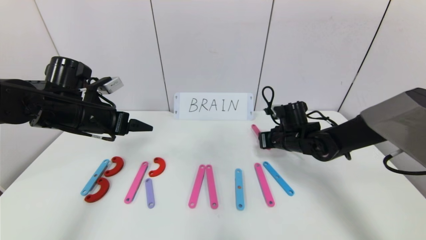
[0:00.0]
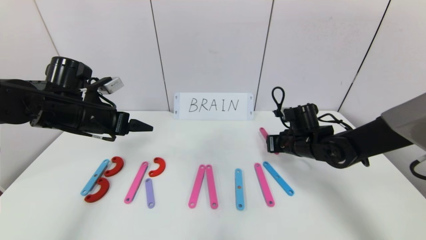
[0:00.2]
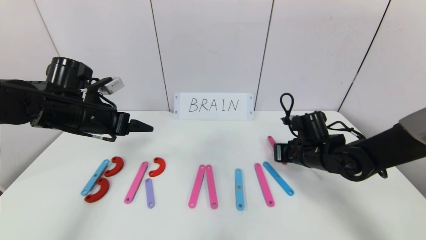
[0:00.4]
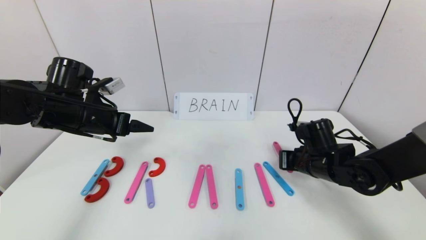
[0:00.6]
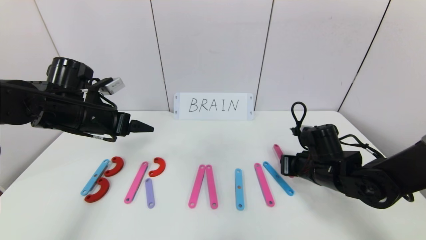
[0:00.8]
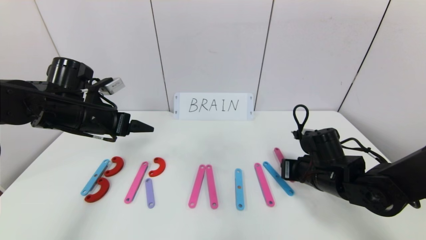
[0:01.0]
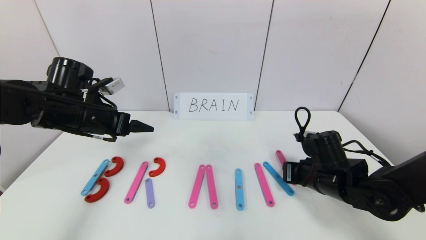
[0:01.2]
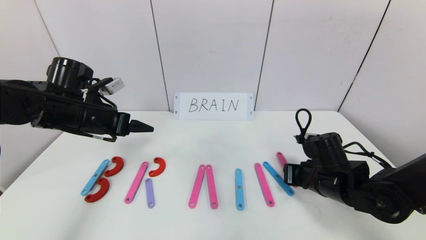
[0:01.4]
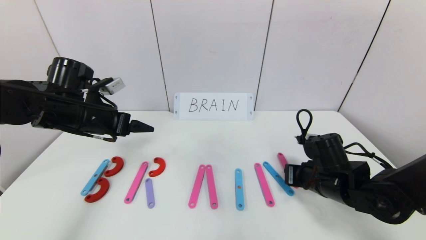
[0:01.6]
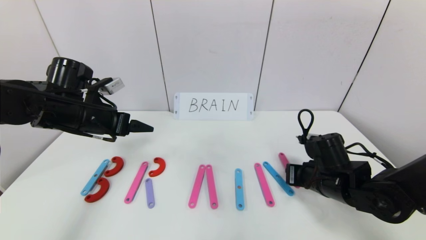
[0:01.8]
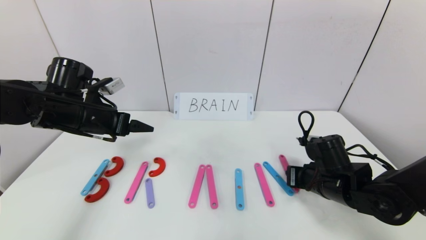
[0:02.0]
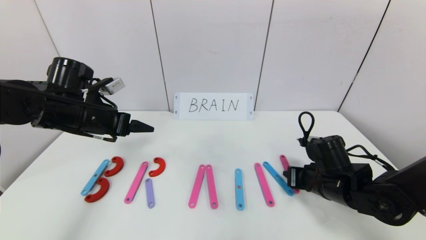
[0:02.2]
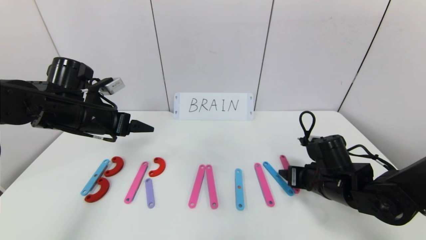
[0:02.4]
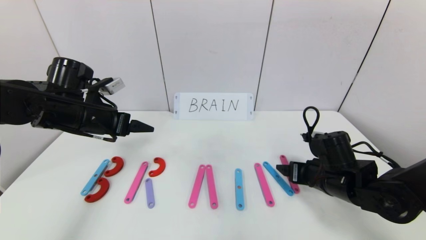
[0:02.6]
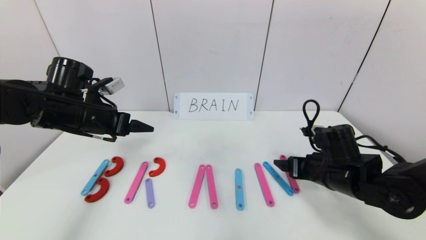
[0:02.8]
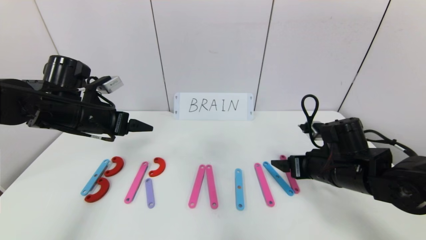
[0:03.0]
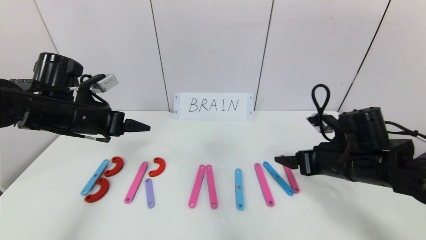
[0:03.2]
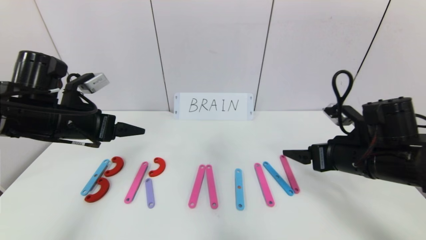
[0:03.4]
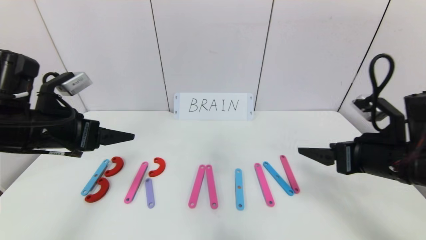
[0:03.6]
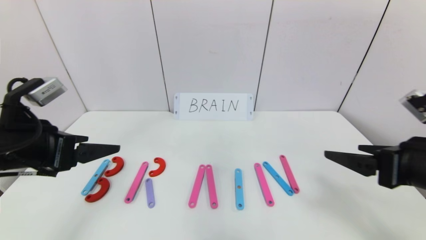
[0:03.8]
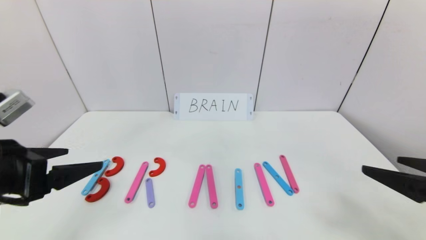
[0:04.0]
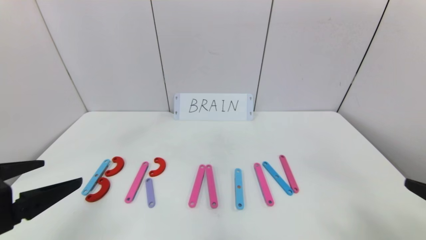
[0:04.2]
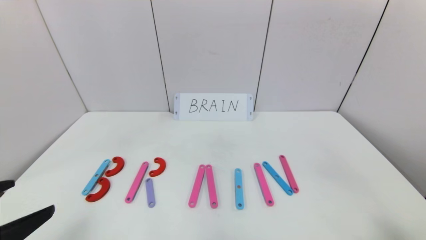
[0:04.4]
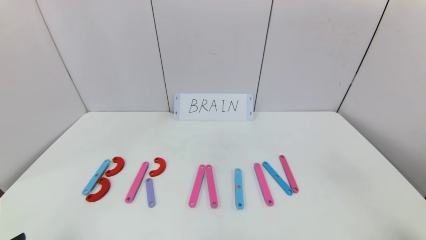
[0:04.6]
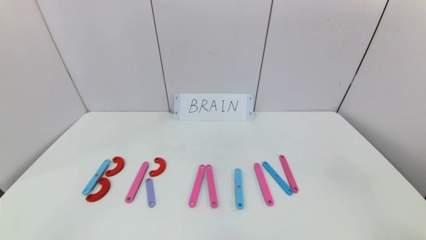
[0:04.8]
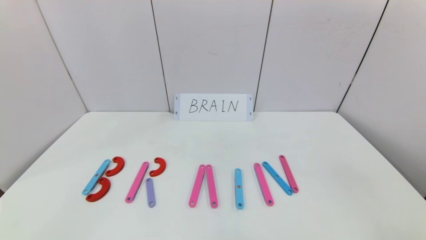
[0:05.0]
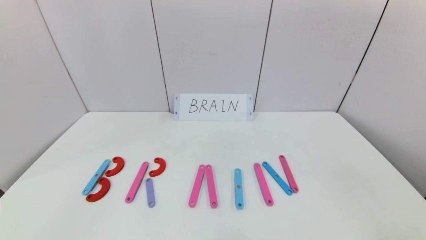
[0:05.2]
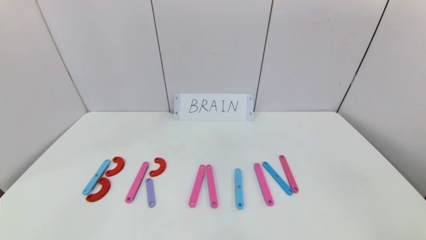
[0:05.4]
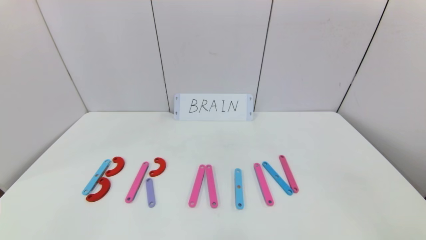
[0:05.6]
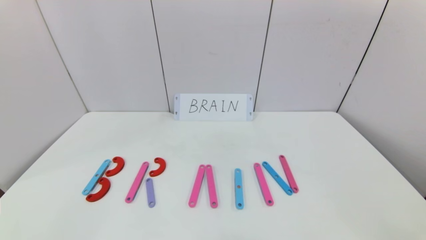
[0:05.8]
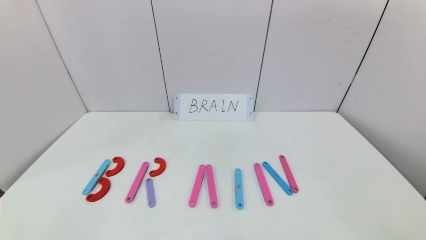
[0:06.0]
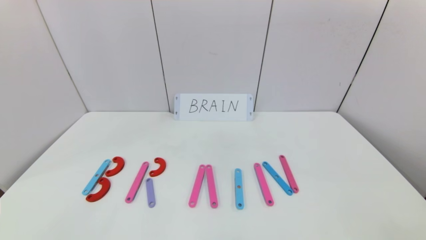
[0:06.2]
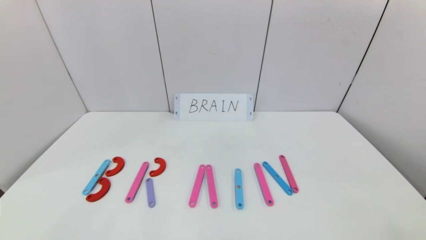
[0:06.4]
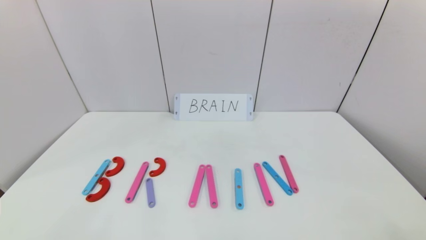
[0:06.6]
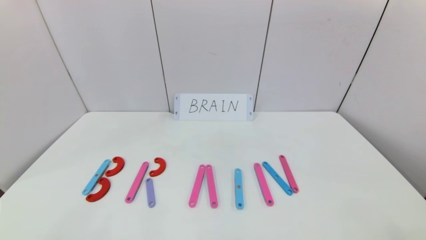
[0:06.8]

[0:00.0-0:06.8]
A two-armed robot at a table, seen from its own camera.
Task of the whole recording: rearrange the word baai as brain.
Step, 0:00.0 to 0:03.0: Place the character N after character I.
0:00.0 to 0:01.4: The right gripper goes about 10 cm backward.
0:01.4 to 0:02.8: The right gripper opens its fingers.
0:02.8 to 0:04.0: The right gripper is displaced backward, upward and to the right by roughly 25 cm, while the left gripper moves backward, roughly 20 cm.
0:04.0 to 0:05.4: The grippers both shift backward by roughly 15 cm.

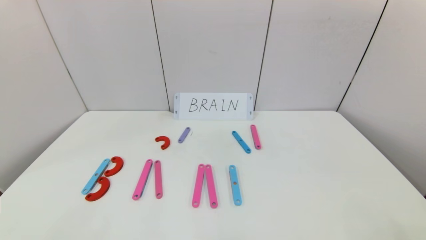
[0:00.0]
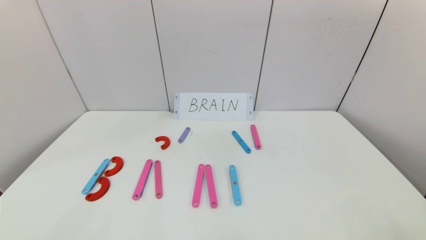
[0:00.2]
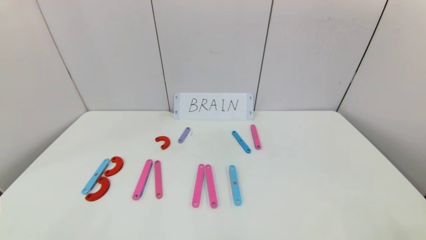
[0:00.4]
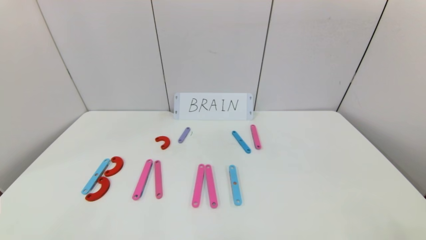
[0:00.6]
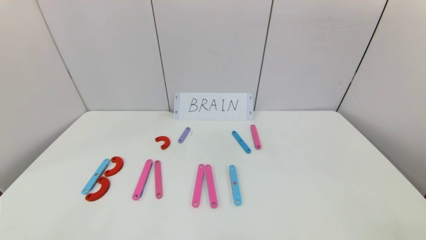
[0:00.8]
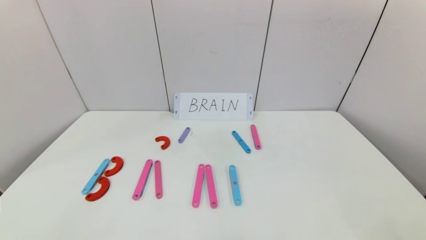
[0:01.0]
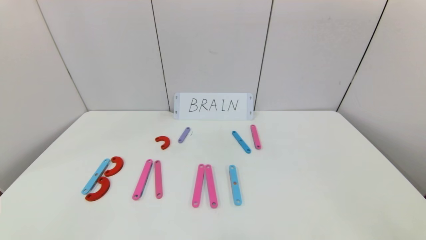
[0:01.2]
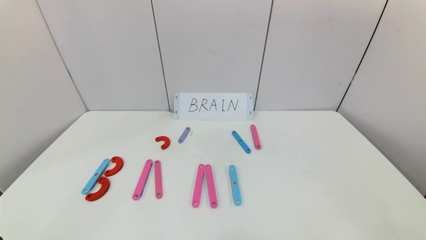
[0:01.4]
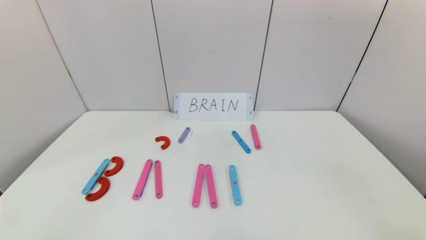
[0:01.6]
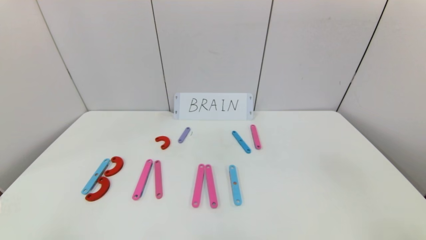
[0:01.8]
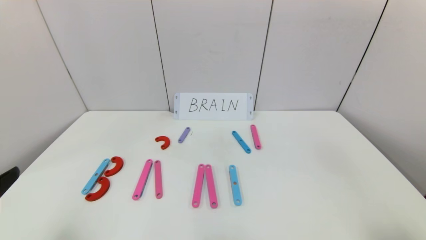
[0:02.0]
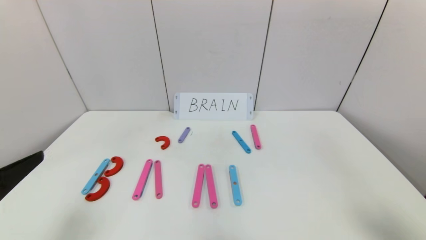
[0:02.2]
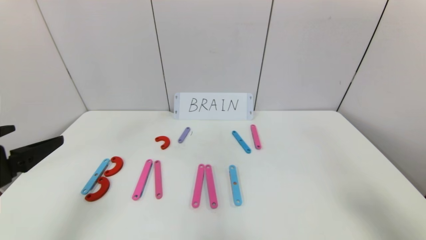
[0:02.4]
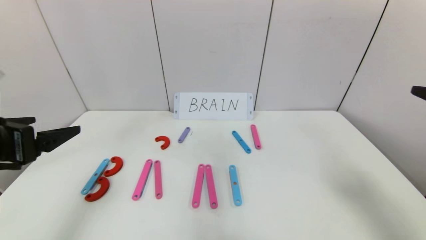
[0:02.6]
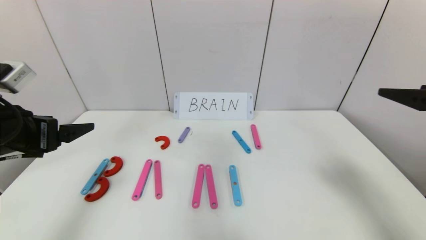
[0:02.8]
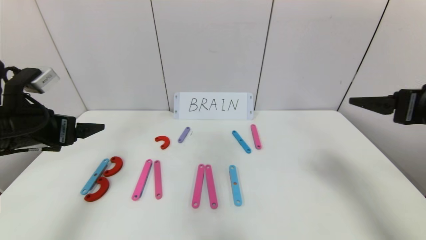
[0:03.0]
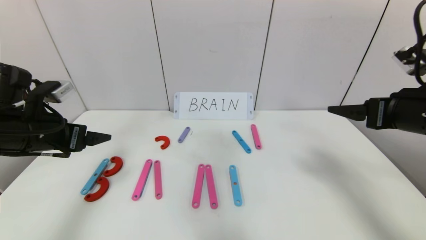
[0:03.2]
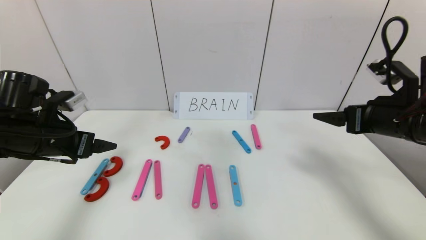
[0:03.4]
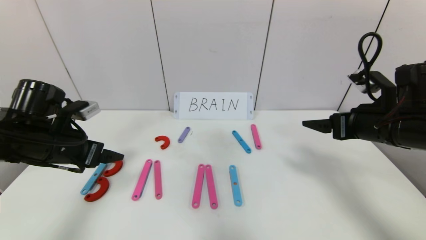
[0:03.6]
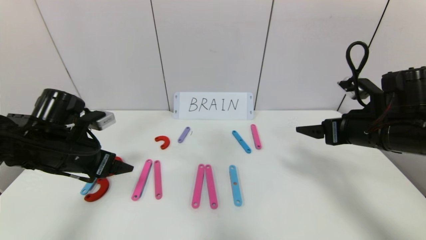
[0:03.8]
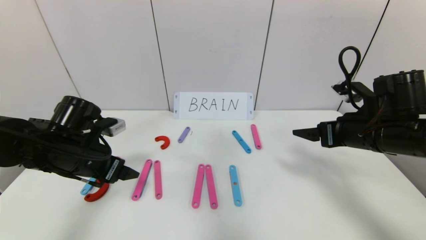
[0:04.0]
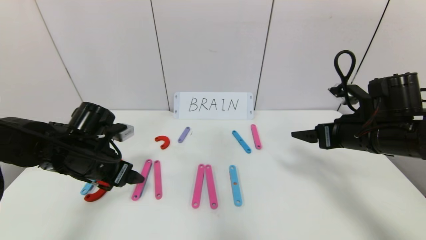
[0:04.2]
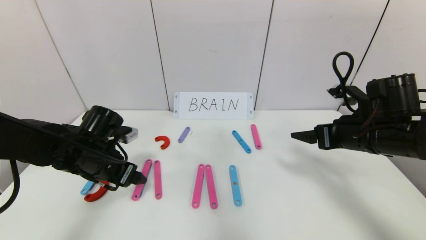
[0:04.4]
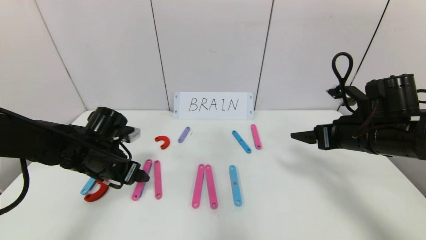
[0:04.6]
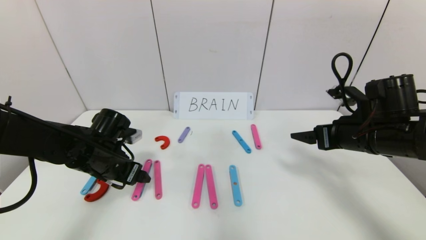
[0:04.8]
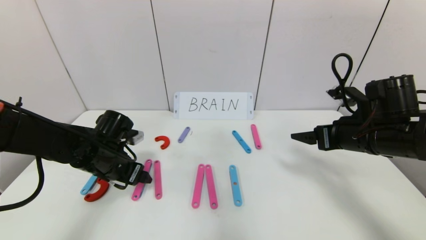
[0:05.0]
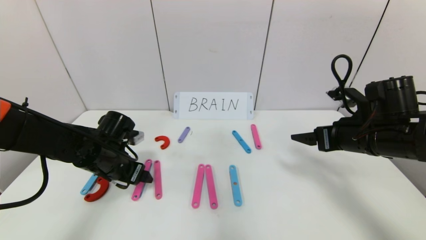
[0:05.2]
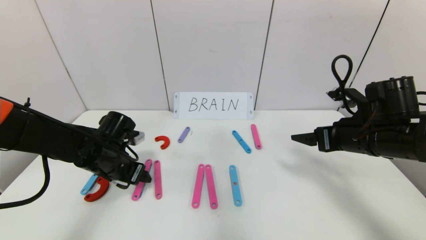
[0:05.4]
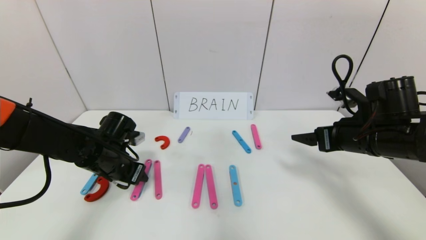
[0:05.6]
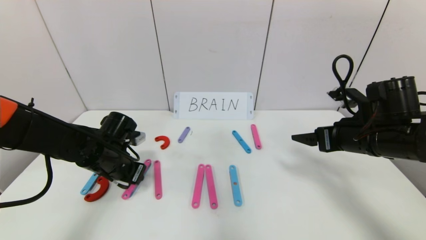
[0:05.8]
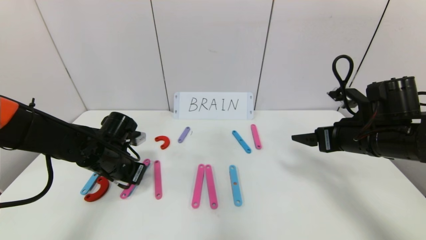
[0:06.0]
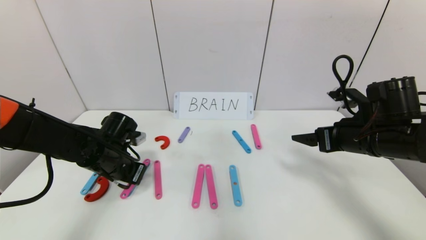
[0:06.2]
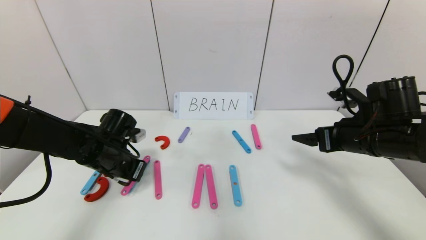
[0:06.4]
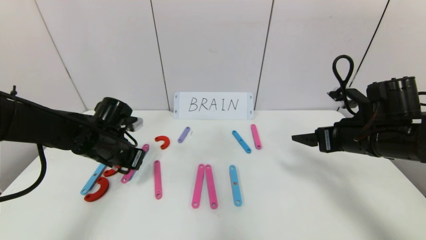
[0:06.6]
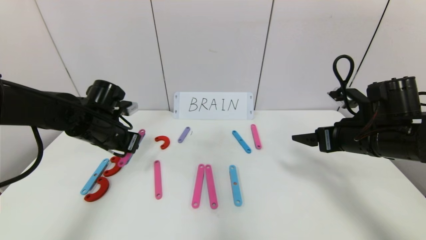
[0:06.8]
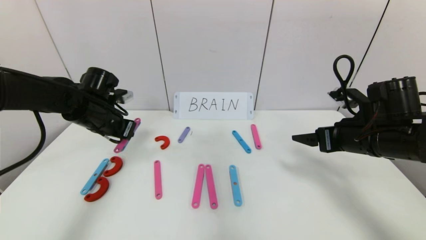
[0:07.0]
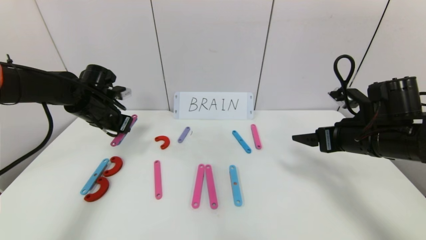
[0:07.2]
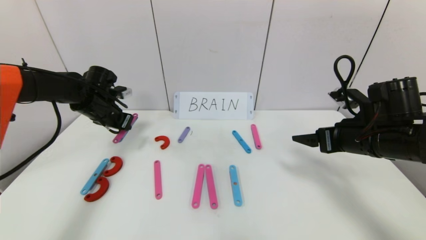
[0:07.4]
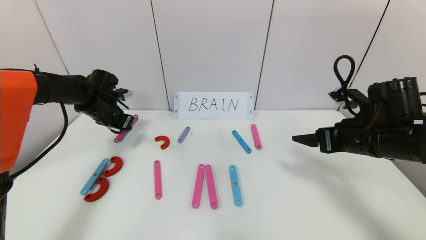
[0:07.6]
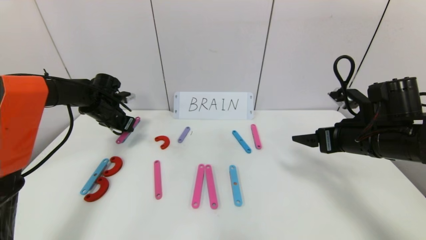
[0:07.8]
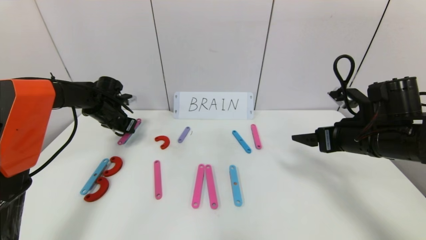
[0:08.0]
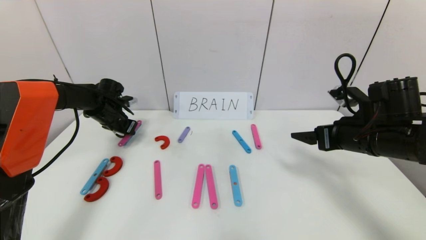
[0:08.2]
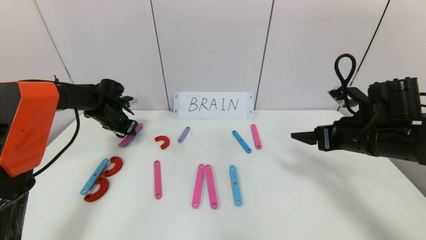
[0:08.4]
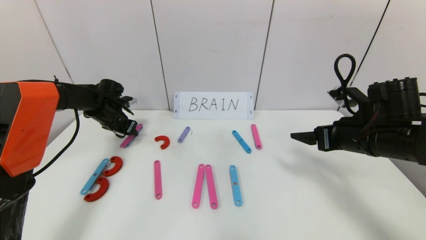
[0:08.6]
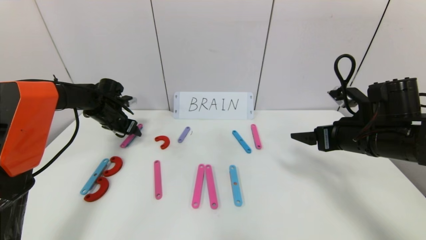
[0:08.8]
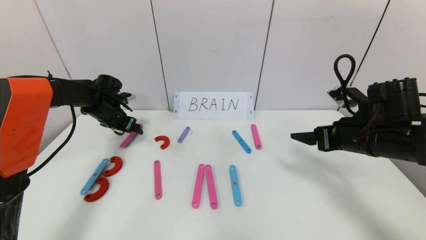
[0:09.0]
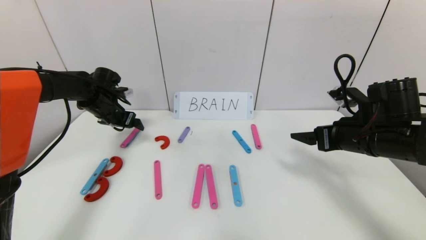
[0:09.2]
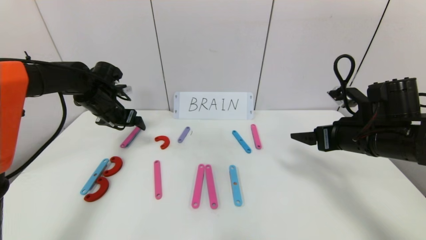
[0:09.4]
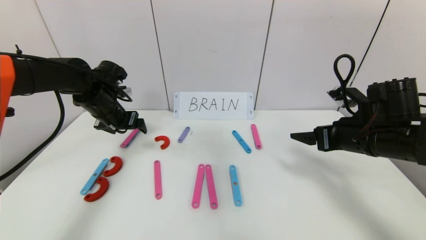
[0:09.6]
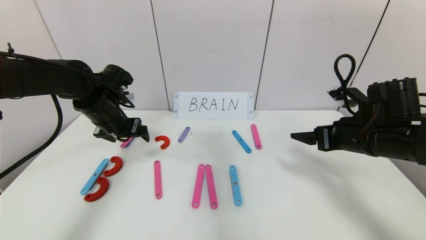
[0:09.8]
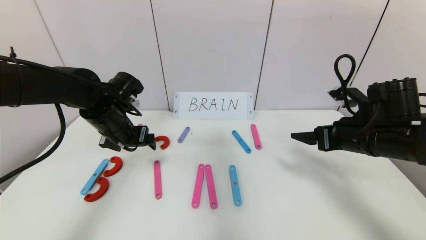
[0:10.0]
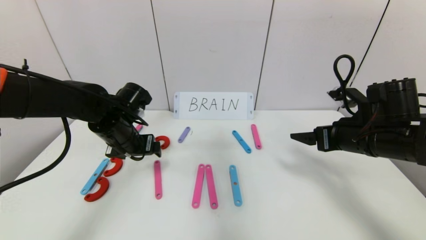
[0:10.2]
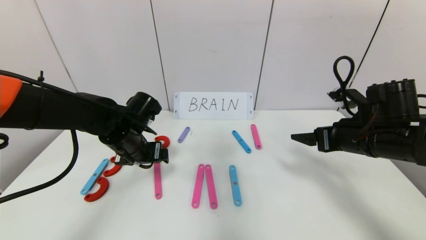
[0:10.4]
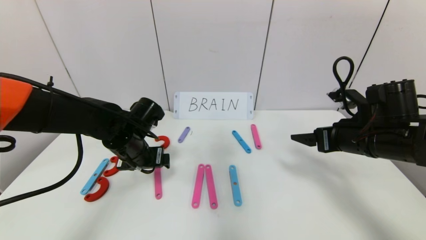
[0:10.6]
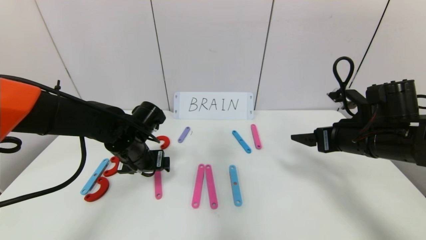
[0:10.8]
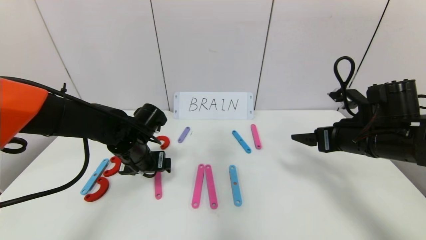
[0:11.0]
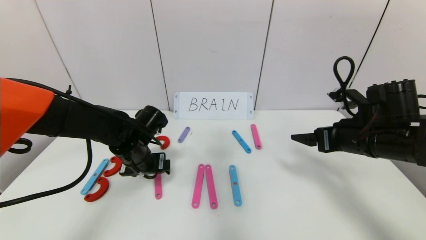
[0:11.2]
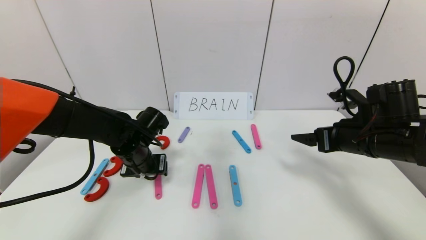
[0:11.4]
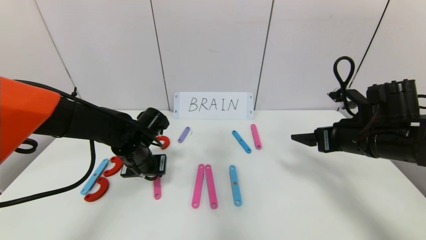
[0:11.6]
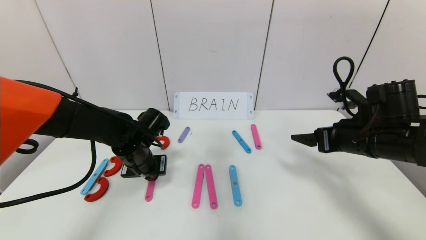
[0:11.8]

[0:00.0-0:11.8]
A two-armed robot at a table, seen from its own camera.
Task of the whole recording: rearrange the word baai as brain.
0:01.4 to 0:03.0: The right gripper heads forward and upward, covering roughly 25 cm. Meanwhile the left gripper travels forward by about 25 cm.
0:03.0 to 0:04.4: The left gripper travels downward, to the right and forward by approximately 15 cm. The right gripper is displaced downward and forward by some 10 cm.
0:04.4 to 0:06.0: The left gripper closes.
0:06.0 to 0:07.4: The left gripper heads forward, upward and to the left, covering some 15 cm.
0:07.4 to 0:08.8: The left gripper shifts by about 5 cm, and opens its fingers.
0:08.8 to 0:10.4: The left gripper travels backward and to the right by some 20 cm.
0:10.4 to 0:11.8: The left gripper closes.
